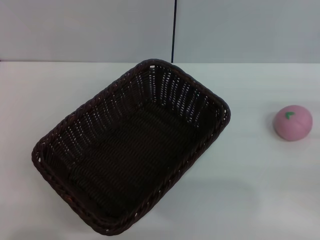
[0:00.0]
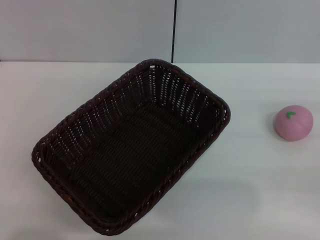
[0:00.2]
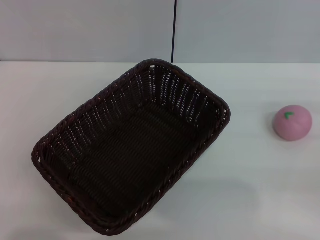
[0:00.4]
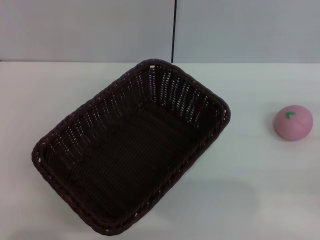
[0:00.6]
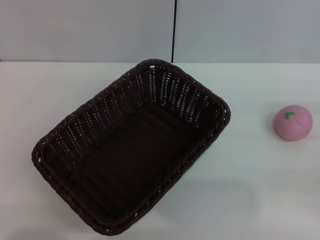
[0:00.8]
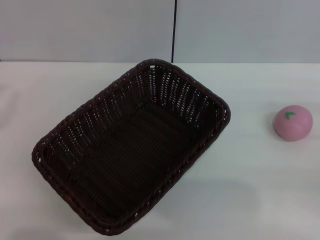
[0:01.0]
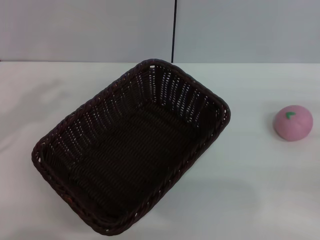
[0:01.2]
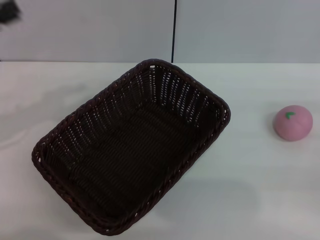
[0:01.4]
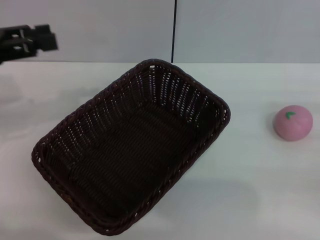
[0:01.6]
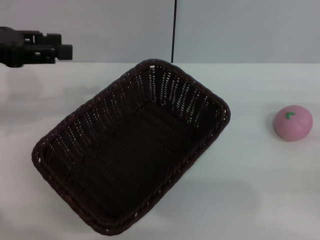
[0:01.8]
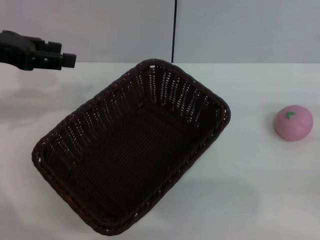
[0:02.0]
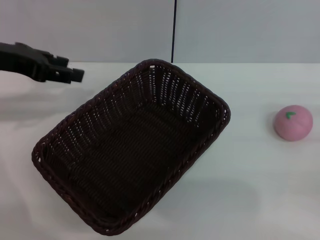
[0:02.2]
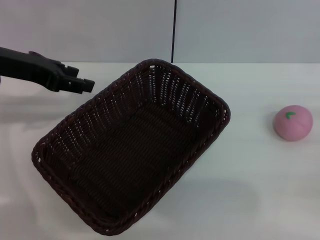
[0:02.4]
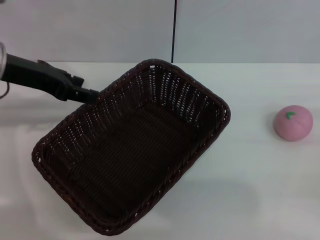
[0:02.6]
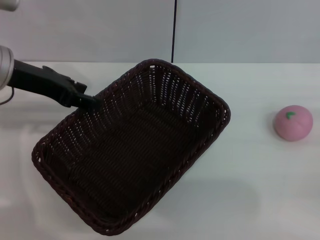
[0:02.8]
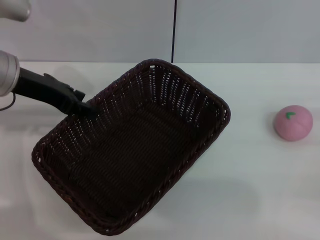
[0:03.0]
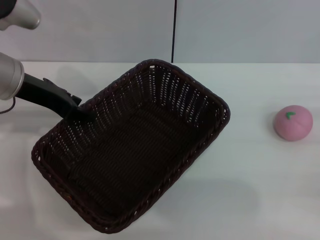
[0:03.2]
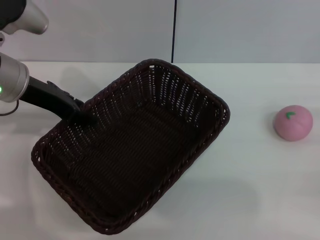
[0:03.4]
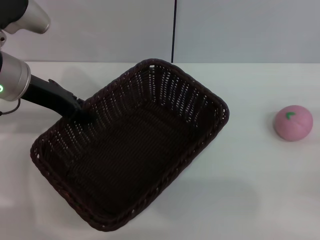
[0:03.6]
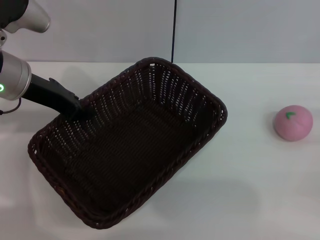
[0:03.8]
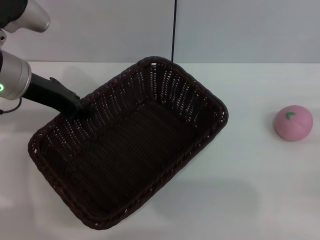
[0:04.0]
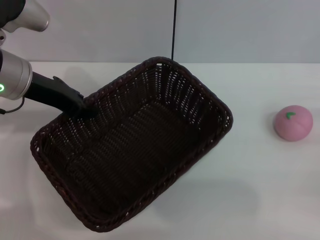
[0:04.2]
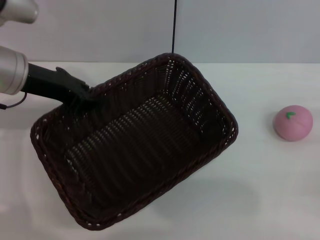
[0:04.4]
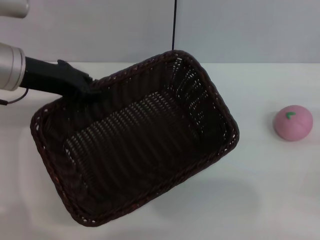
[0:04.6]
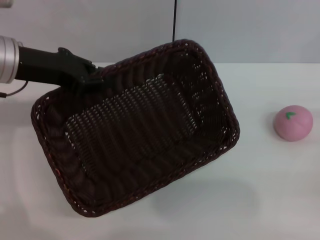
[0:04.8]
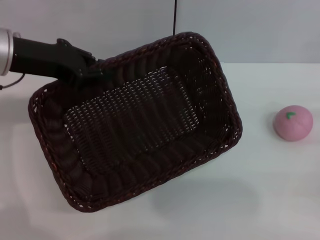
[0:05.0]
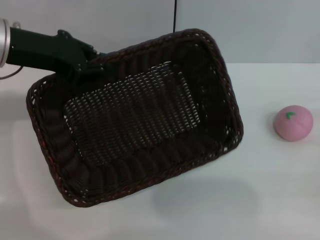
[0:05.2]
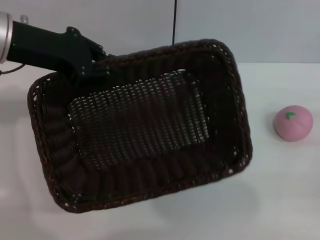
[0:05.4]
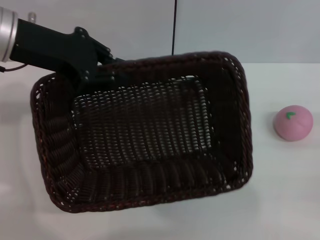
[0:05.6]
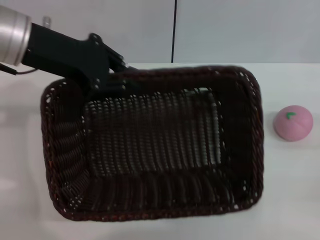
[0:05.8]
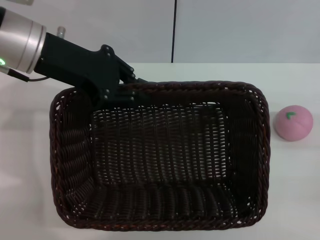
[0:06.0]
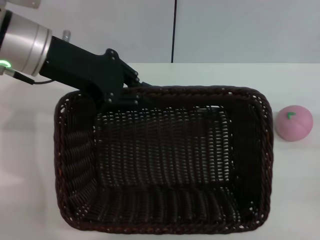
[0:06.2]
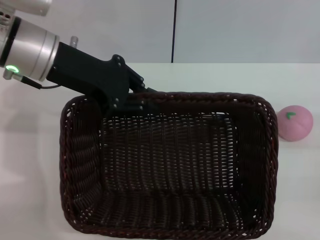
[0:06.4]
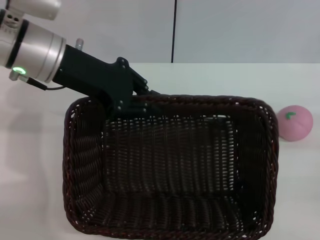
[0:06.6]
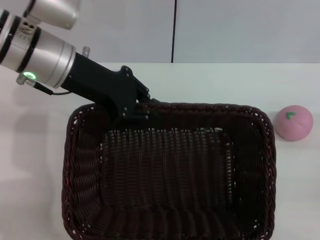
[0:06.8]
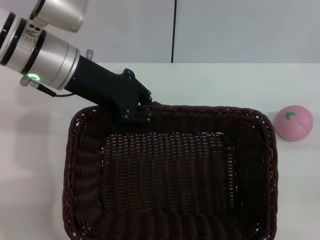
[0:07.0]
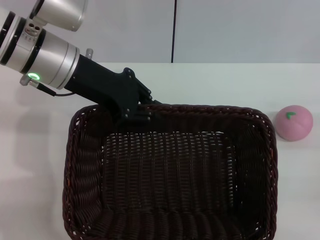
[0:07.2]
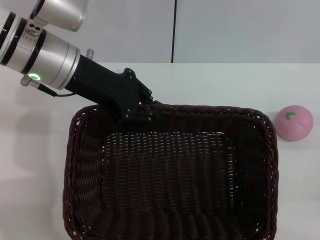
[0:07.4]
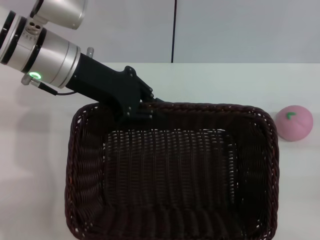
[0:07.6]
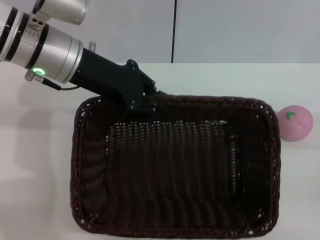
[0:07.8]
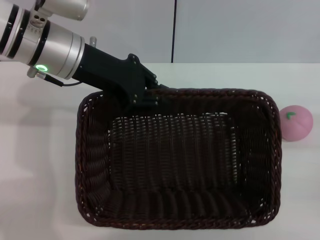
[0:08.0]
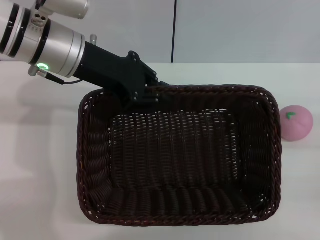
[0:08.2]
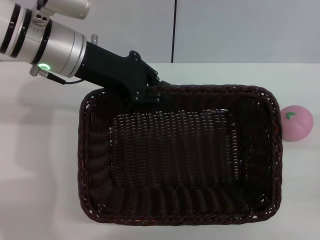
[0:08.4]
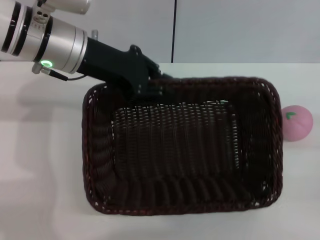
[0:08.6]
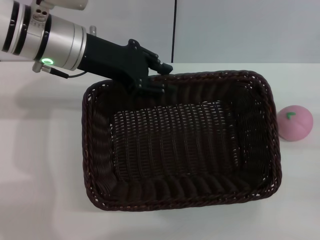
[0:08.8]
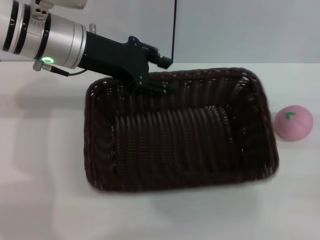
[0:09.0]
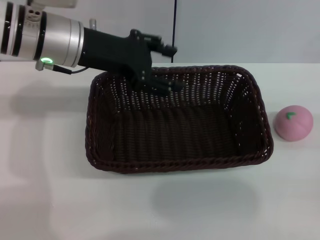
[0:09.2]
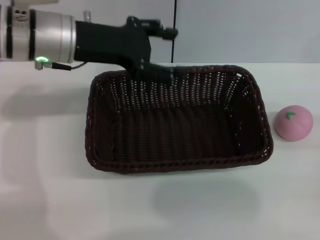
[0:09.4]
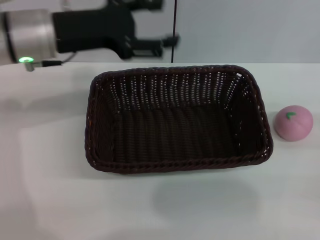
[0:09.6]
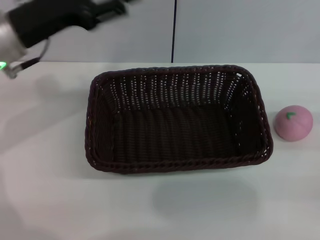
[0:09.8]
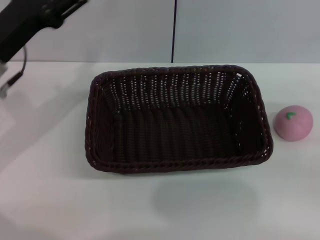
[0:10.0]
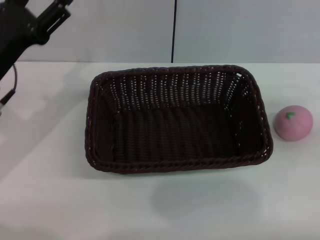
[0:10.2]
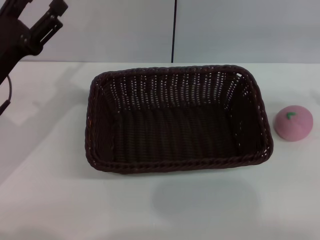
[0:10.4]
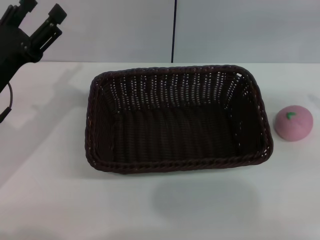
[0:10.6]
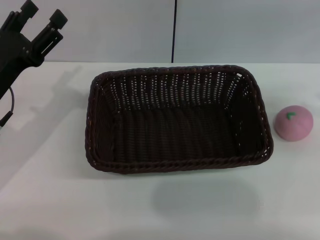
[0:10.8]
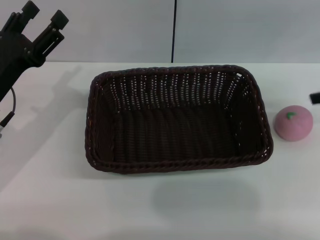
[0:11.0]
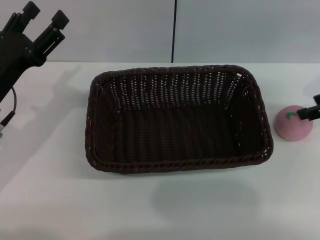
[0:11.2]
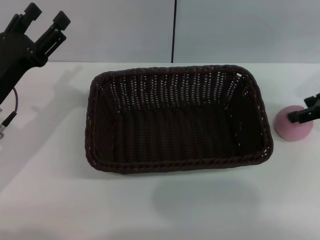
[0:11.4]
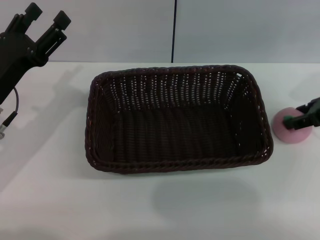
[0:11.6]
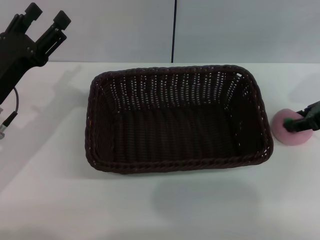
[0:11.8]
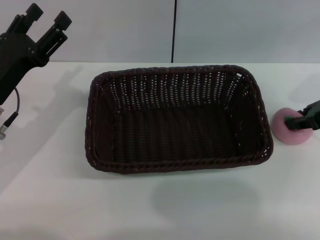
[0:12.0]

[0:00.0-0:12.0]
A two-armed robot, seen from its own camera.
Step, 0:00.0 to 0:04.6: Pick up the dark basket with the left gripper.
0:00.0 to 0:01.6: The left gripper shifts about 20 cm forward and upward.
0:01.6 to 0:03.0: The left gripper heads to the right, covering roughly 10 cm.
0:03.0 to 0:04.4: The left gripper closes.
0:04.4 to 0:06.0: The left gripper moves some 5 cm.
0:07.6 to 0:09.0: The left gripper opens its fingers.
0:09.0 to 0:10.4: The left gripper is displaced to the left, downward and backward by roughly 15 cm, and opens its fingers; the right gripper moves upward and forward, roughly 15 cm.
0:10.4 to 0:12.0: The right gripper heads to the left and forward, covering approximately 10 cm.

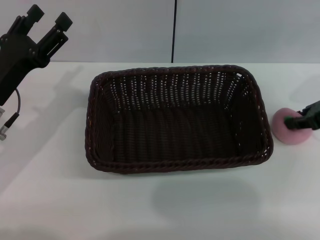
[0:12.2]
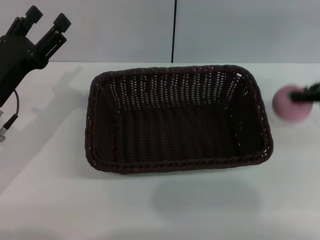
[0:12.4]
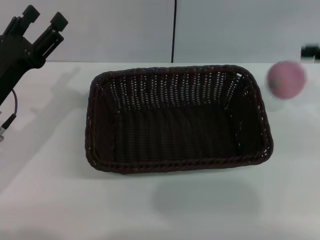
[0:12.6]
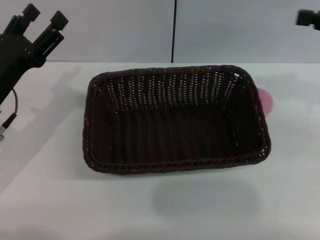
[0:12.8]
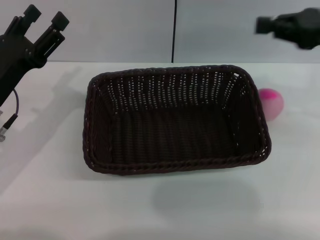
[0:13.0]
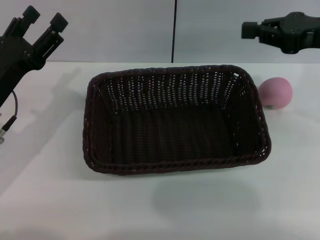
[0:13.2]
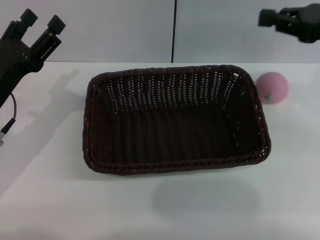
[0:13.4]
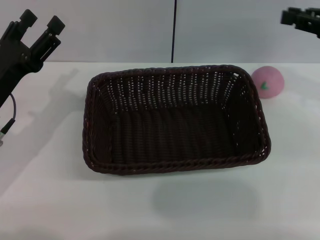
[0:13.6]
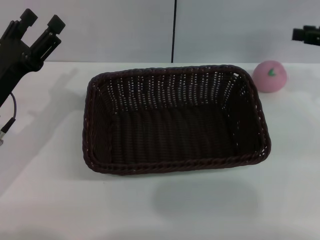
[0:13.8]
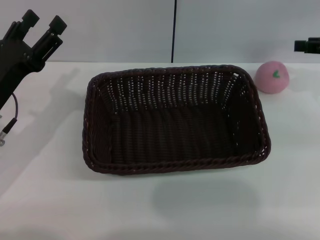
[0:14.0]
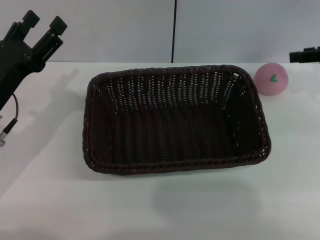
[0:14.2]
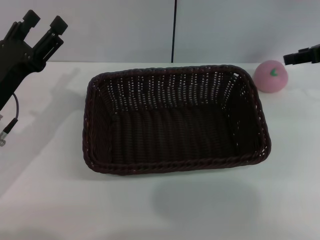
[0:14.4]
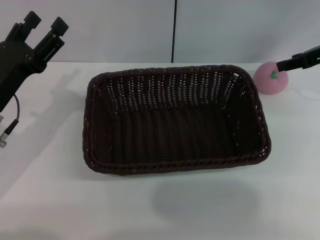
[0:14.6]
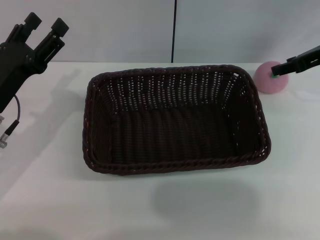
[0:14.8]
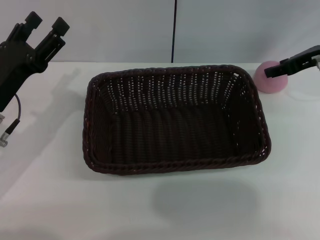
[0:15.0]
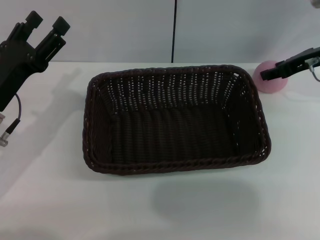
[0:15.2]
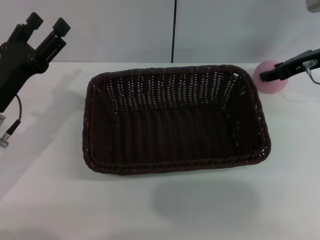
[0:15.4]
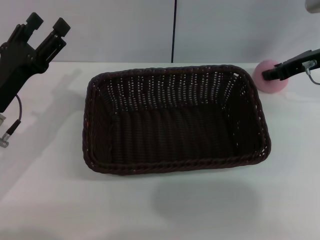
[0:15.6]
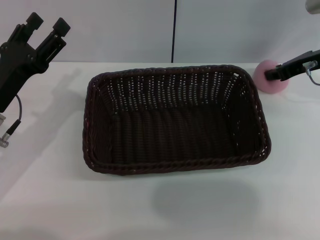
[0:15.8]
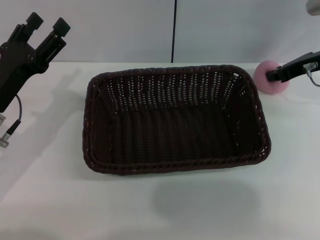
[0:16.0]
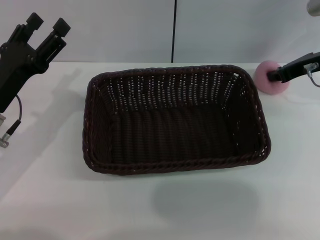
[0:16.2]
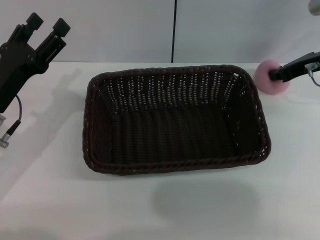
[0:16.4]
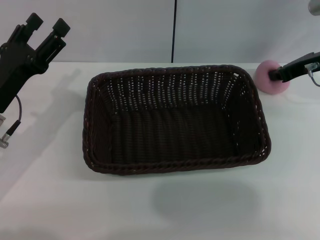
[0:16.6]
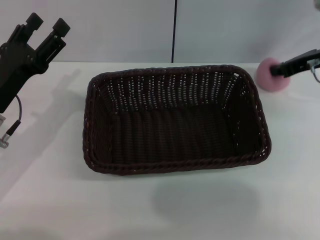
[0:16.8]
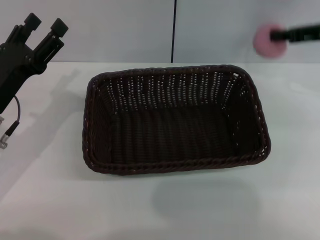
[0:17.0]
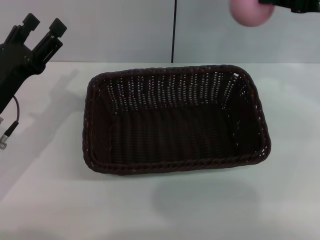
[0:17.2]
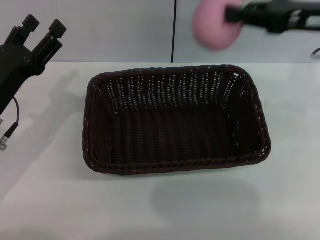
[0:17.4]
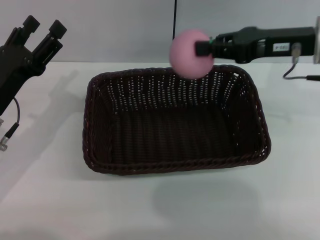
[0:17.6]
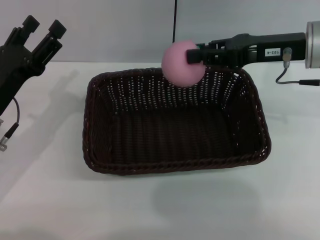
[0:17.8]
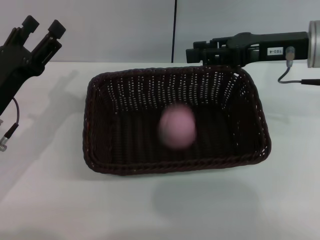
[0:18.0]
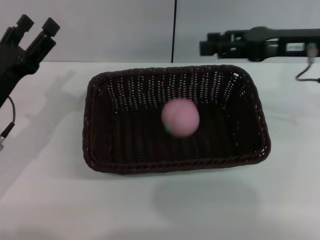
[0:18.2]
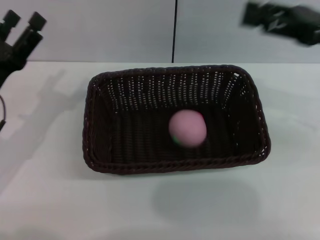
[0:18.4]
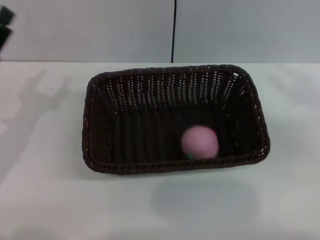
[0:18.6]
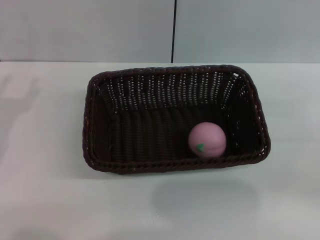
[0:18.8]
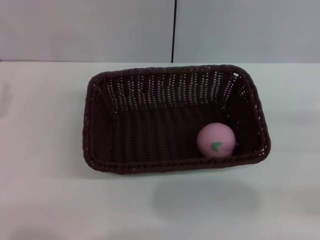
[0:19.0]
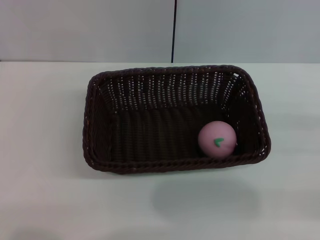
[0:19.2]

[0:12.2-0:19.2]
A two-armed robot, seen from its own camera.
0:12.2 to 0:13.6: The right gripper goes about 5 cm upward.
0:13.6 to 0:15.0: The right gripper heads forward, covering some 5 cm, and opens its fingers.
0:15.0 to 0:16.4: The right gripper closes its fingers.
0:16.4 to 0:17.8: The right gripper is displaced to the left, backward and upward by approximately 10 cm.
0:17.8 to 0:19.2: The left gripper moves to the left and backward, some 10 cm. Meanwhile the right gripper moves to the right, backward and downward, approximately 25 cm, and opens up.
